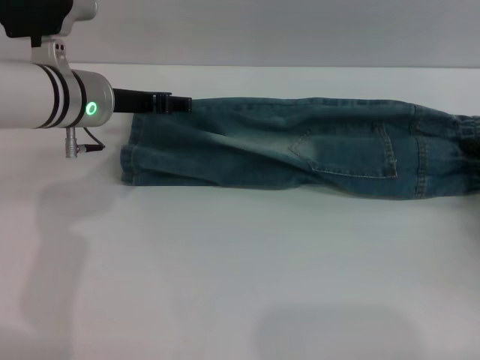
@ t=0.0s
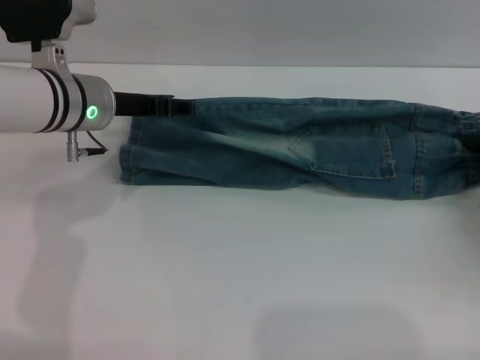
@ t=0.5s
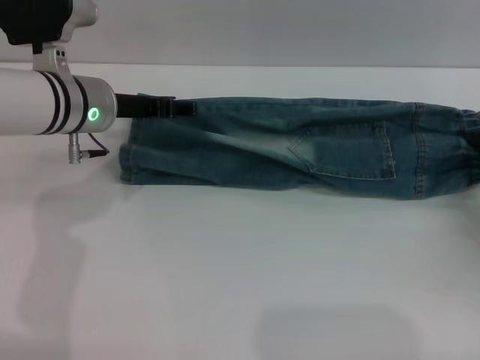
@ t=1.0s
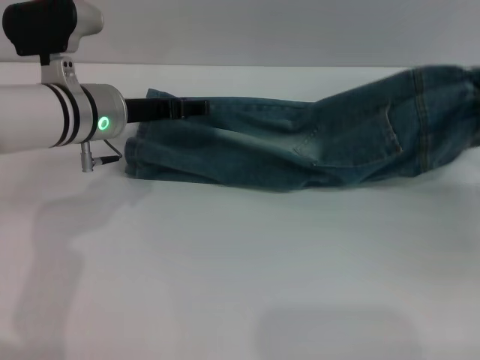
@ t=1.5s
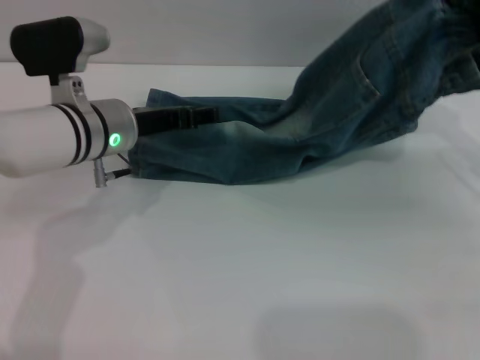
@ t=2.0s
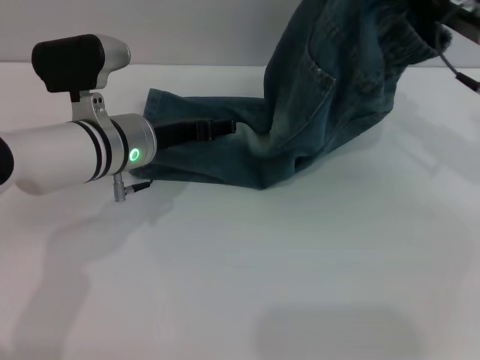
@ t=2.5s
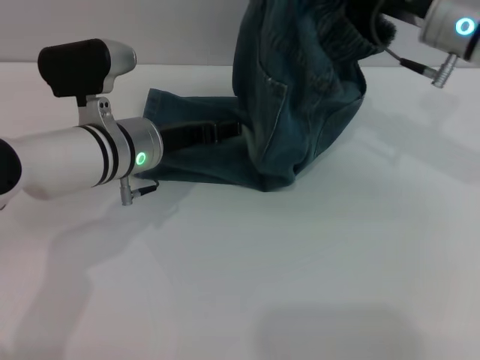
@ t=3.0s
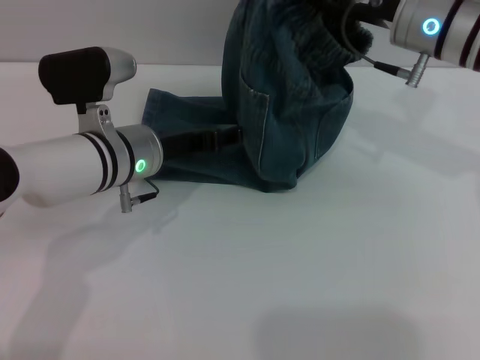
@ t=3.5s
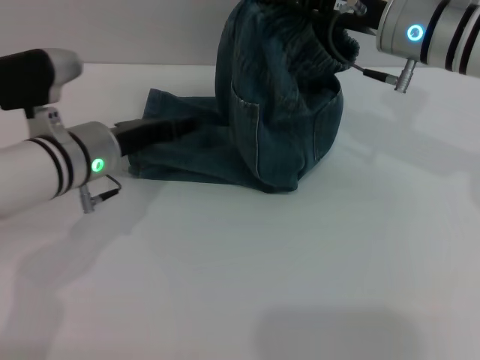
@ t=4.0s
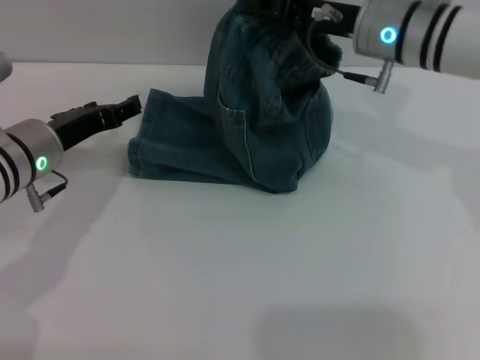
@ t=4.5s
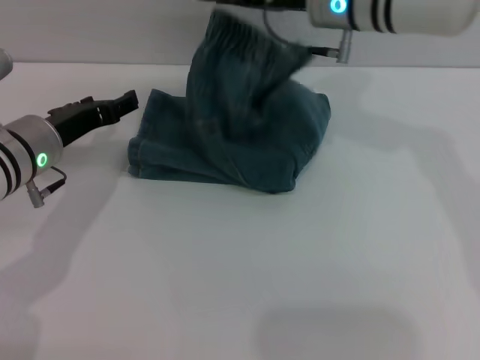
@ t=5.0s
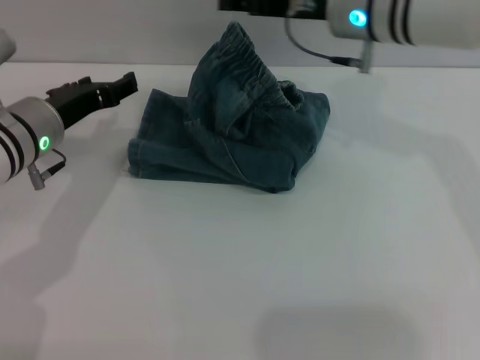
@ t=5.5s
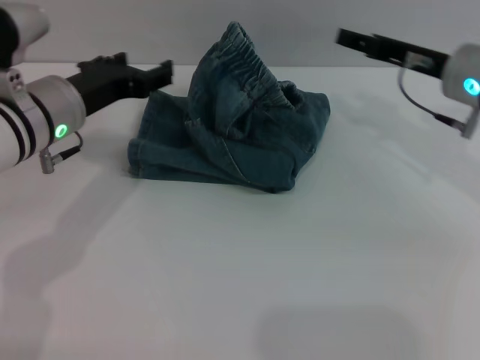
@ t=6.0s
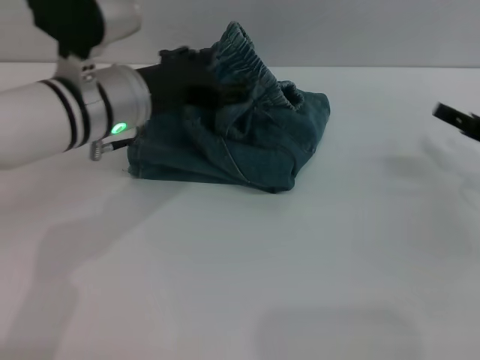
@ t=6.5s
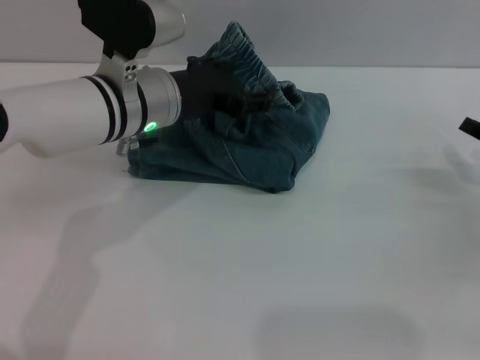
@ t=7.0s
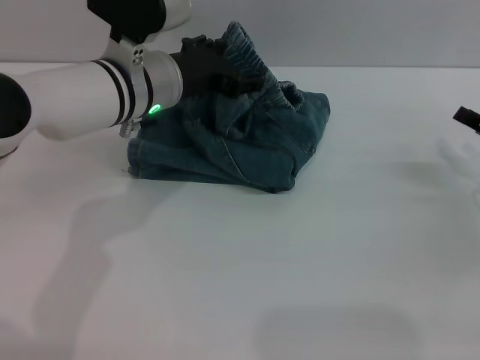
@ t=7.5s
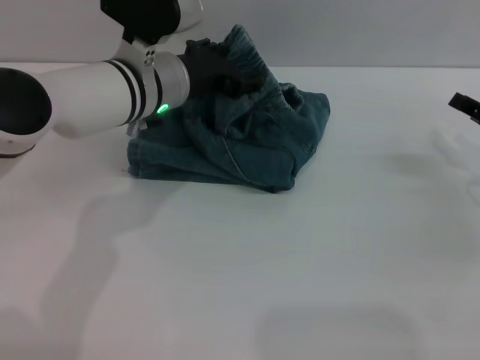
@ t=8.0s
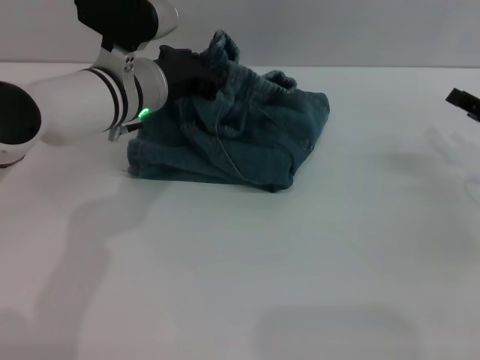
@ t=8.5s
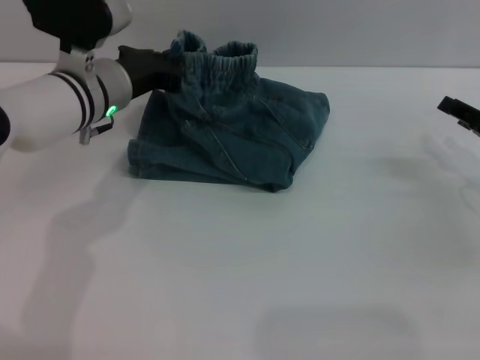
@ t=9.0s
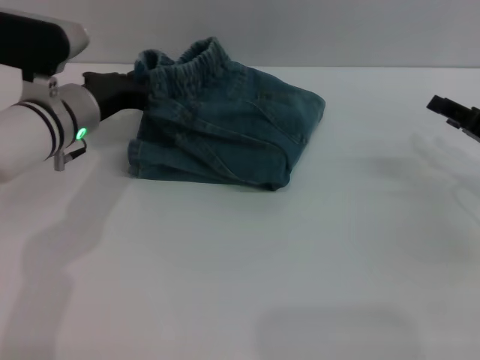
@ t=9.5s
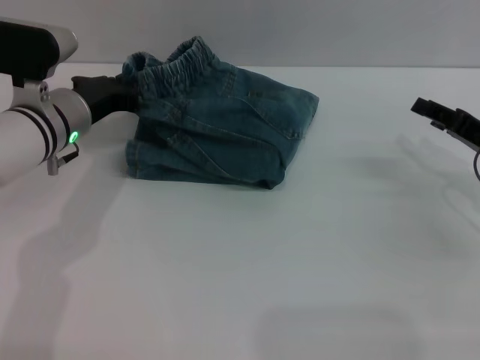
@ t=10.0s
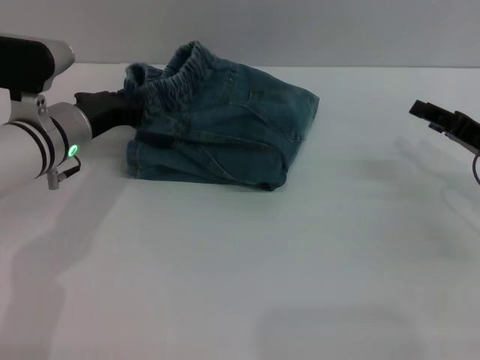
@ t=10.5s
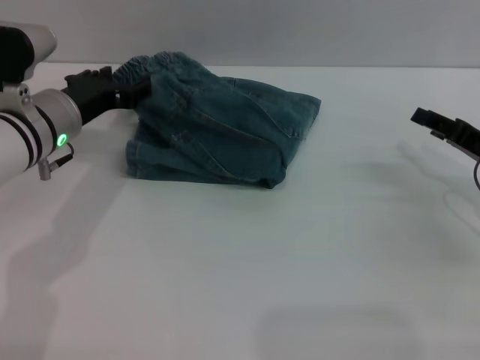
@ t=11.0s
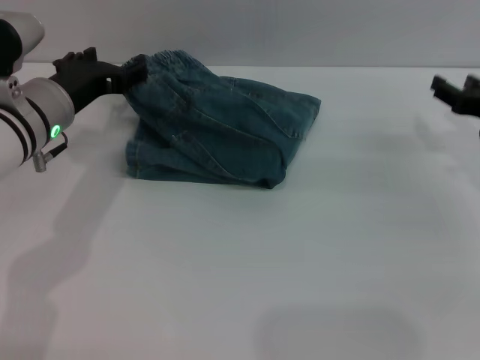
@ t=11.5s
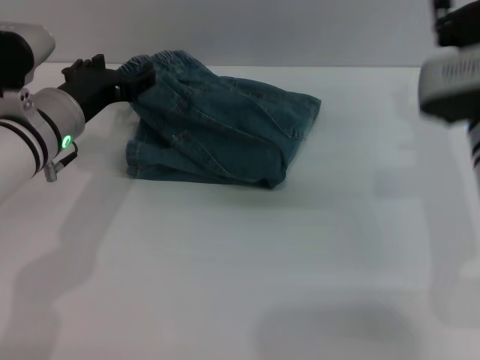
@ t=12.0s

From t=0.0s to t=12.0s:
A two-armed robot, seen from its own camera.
Step, from t=0.0s to t=11.5s: Fold the pants from right to left with the right gripper.
From t=0.0s to t=2.0s: The right gripper is displaced upward and forward by about 15 cm, and closes up.
From t=2.0s to t=4.0s: The right gripper is displaced to the left and forward by about 15 cm.
From t=4.0s to t=6.0s: The right gripper heads to the right, covering some 5 cm, and opens up.
From t=6.0s to t=8.0s: The right gripper goes roughly 15 cm to the right, backward and downward. Meanwhile the left gripper shifts roughly 10 cm to the right.
From t=8.0s to t=10.0s: The left gripper travels to the left by some 10 cm, and closes up.
From t=10.0s to t=12.0s: The left gripper opens its fingers. The right gripper shifts about 10 cm to the left.

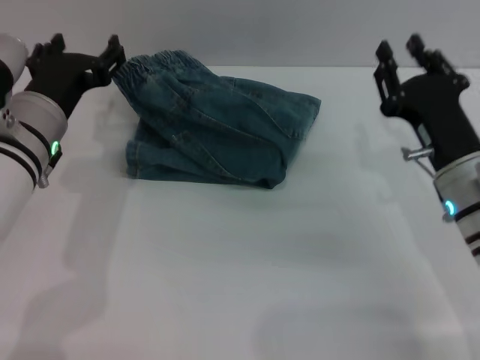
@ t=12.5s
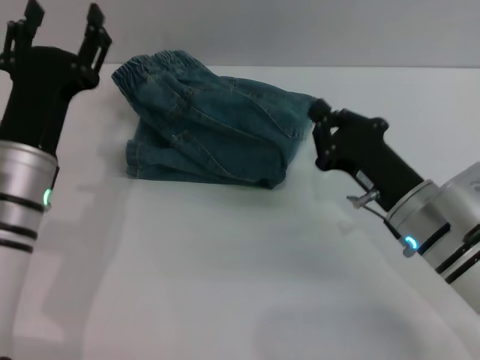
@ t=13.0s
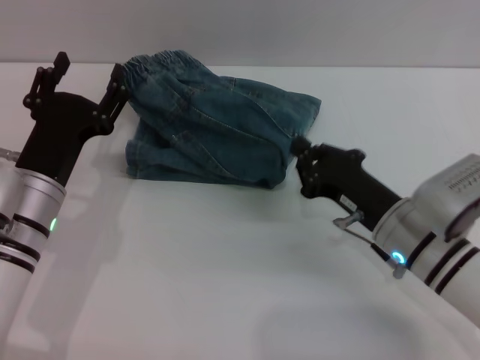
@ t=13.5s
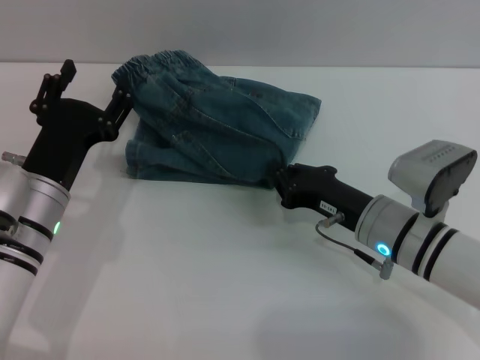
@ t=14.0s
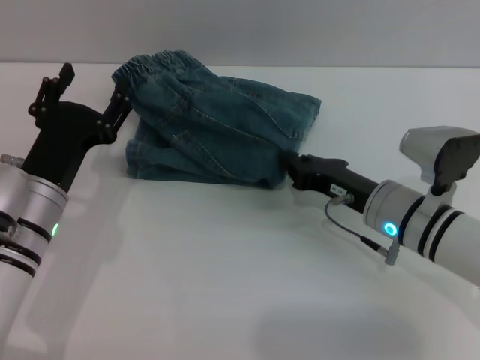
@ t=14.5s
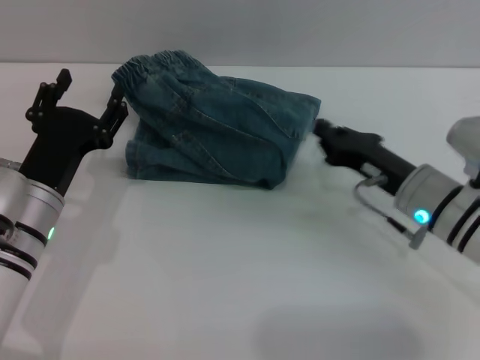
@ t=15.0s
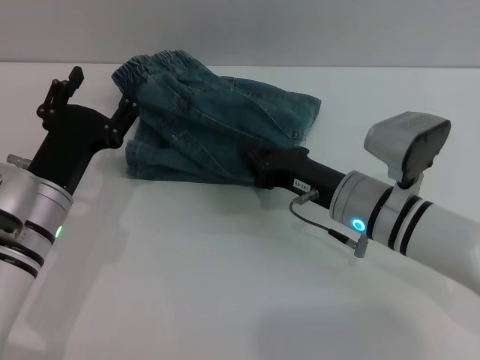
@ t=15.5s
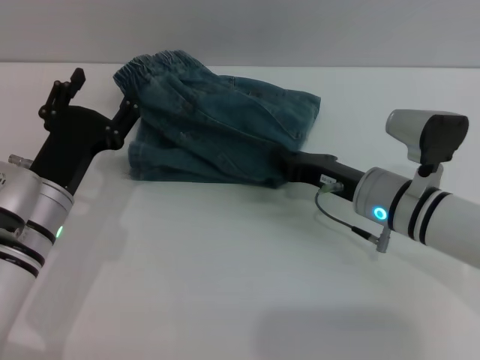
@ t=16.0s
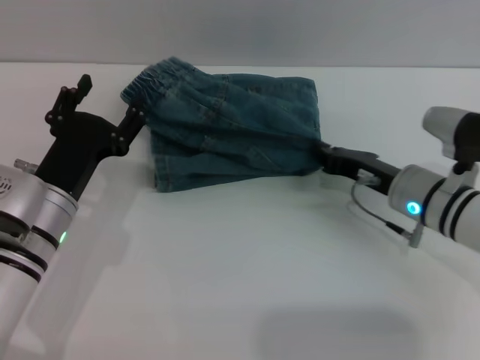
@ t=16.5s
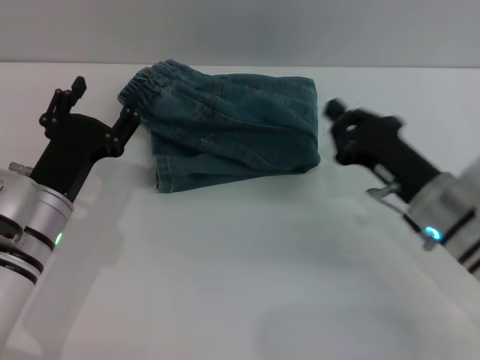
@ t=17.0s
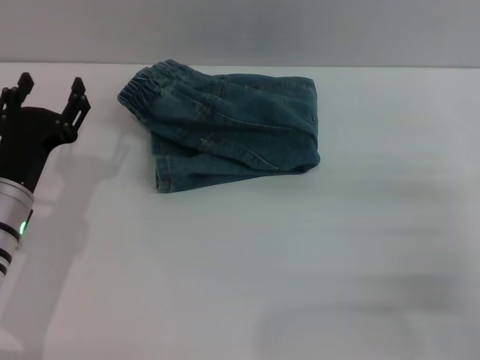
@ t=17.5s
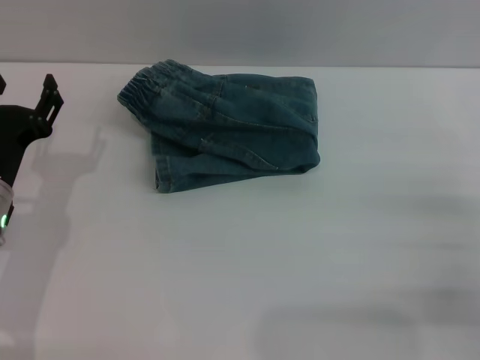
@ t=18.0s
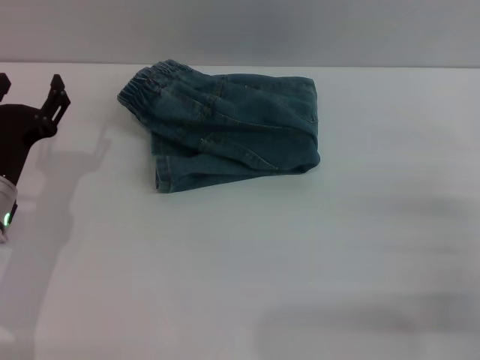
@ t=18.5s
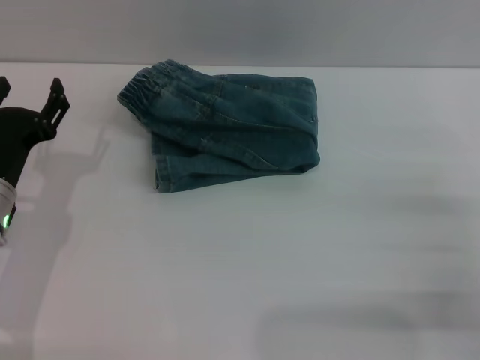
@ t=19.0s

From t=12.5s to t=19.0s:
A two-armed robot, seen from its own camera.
Step, from t=12.5s to t=17.0s: Place the folded trousers onto the center area with the right grippers.
From t=12.5s to t=14.5s: The left gripper moves downward, about 5 cm; the right gripper changes place by some 5 cm, and closes.
From t=17.0s to t=19.0s: The left gripper is displaced to the left by approximately 5 cm. The right gripper travels to the right and backward by approximately 15 cm, and opens.
